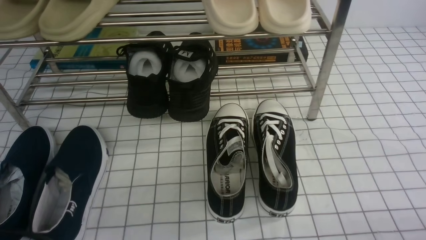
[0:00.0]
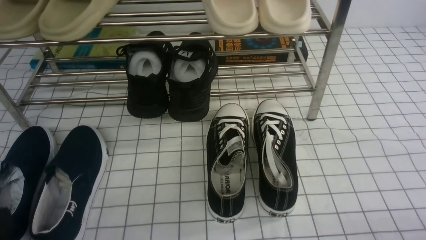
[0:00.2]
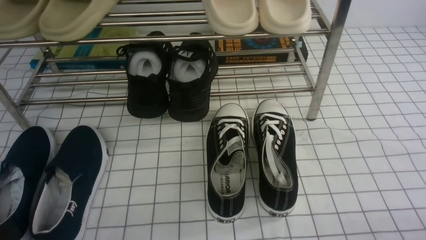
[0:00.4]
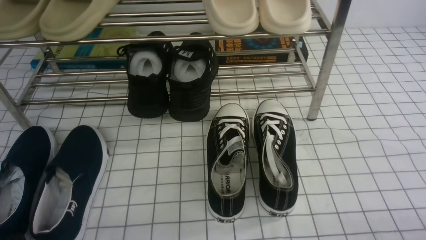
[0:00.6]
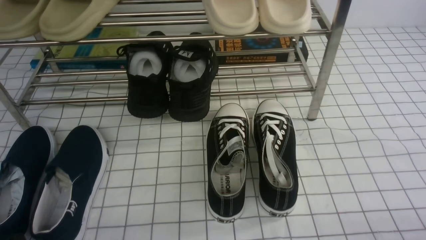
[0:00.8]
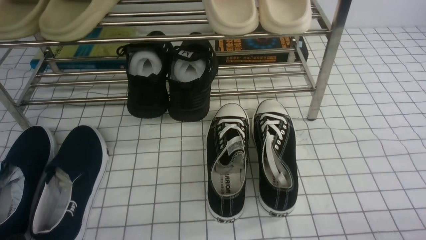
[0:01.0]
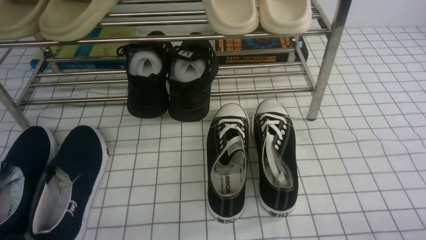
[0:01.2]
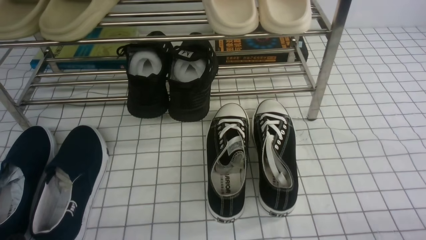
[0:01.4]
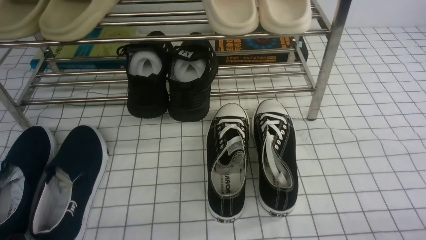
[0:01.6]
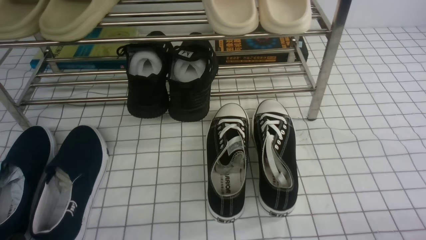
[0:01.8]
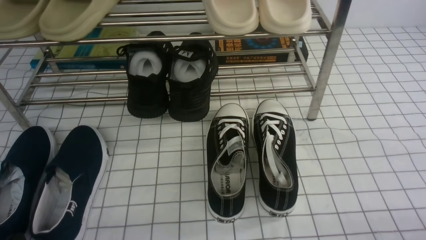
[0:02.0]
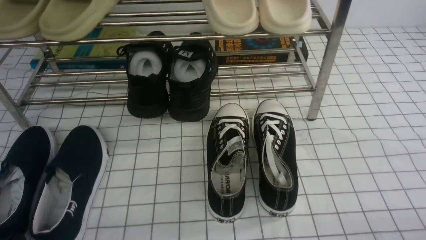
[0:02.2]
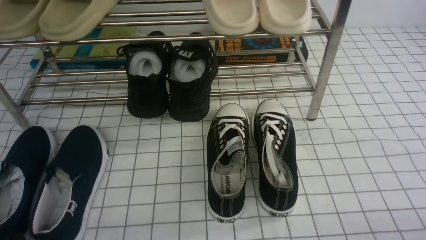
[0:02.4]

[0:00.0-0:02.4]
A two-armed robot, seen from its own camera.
0:01.2 to 0:02.4: Both grippers stay about where they are.

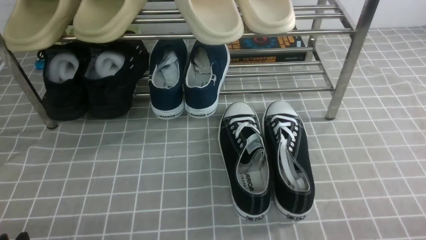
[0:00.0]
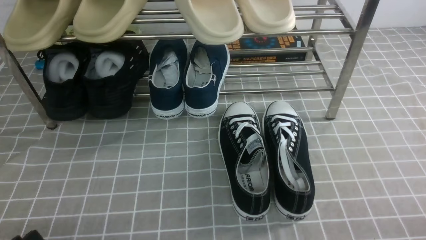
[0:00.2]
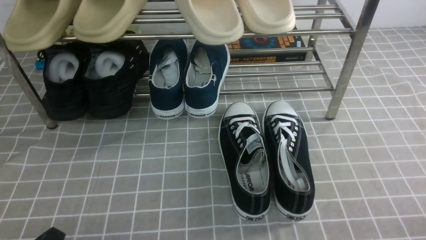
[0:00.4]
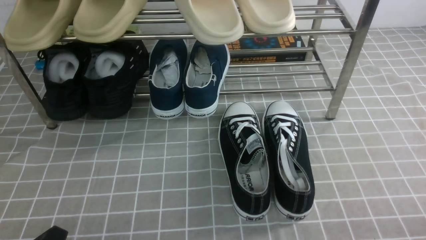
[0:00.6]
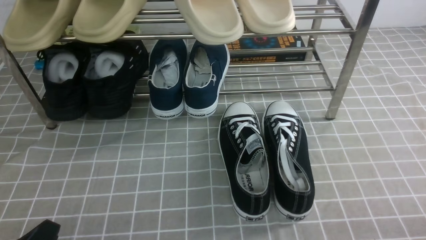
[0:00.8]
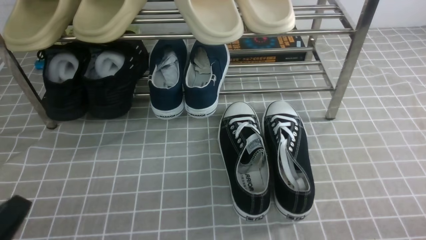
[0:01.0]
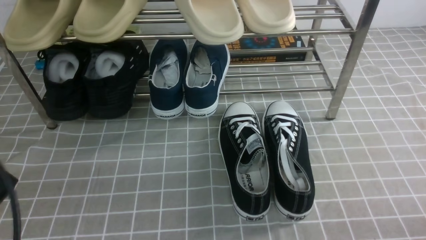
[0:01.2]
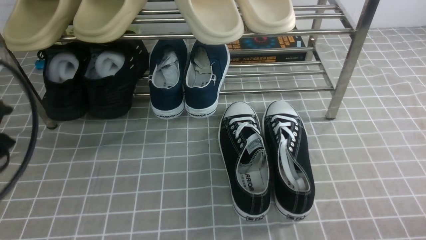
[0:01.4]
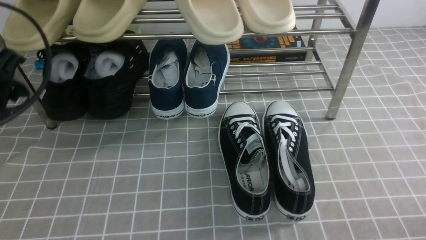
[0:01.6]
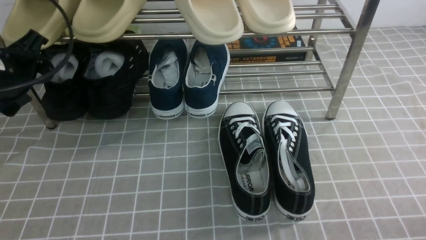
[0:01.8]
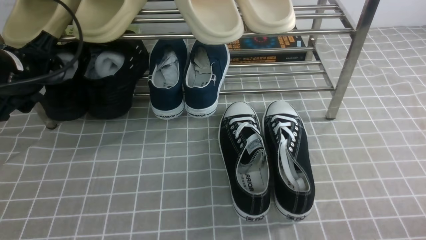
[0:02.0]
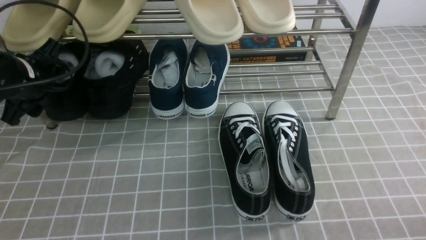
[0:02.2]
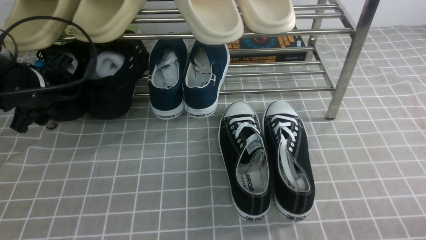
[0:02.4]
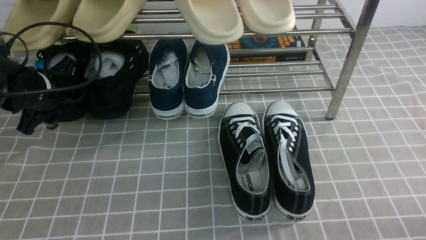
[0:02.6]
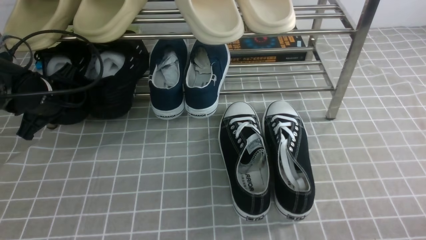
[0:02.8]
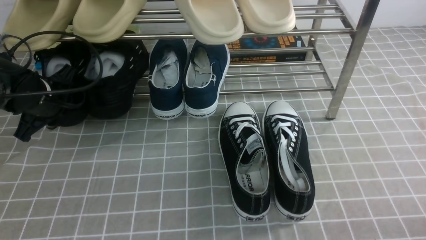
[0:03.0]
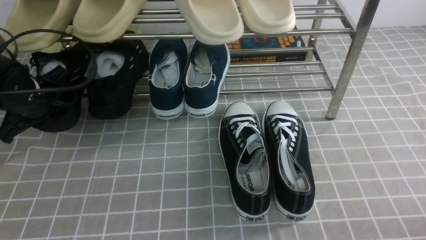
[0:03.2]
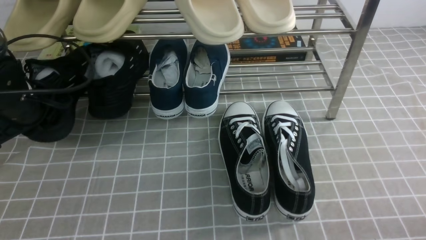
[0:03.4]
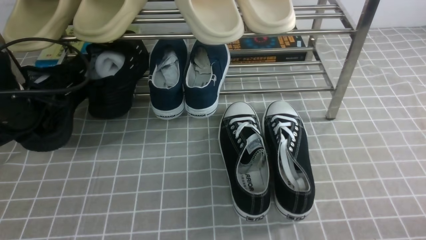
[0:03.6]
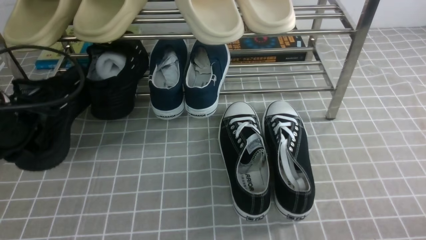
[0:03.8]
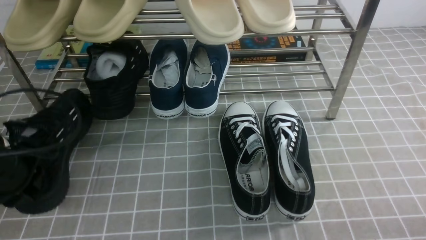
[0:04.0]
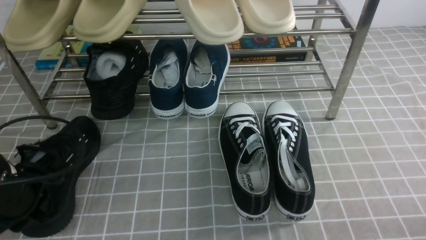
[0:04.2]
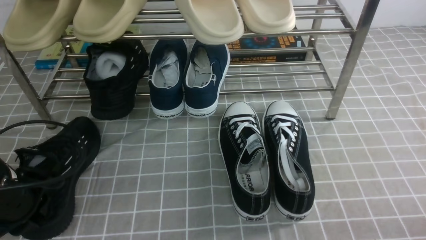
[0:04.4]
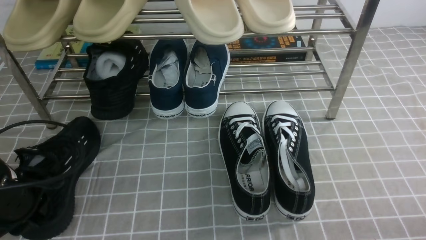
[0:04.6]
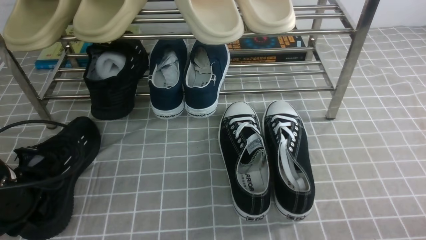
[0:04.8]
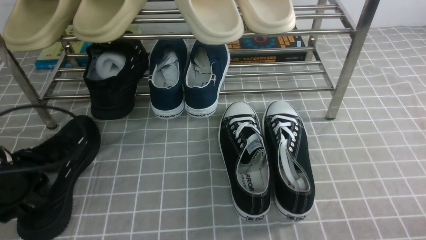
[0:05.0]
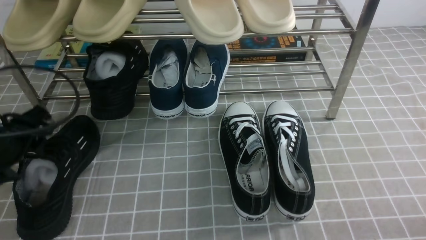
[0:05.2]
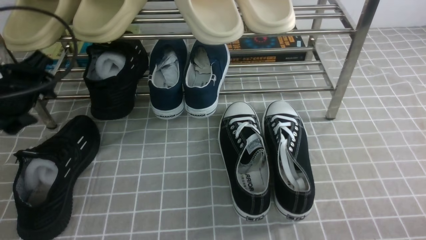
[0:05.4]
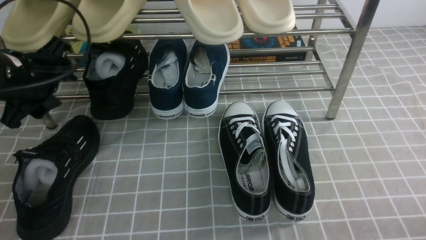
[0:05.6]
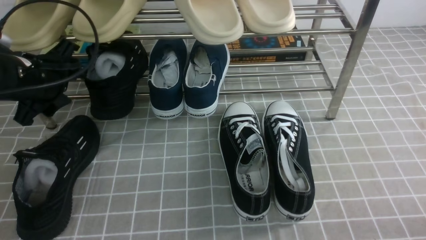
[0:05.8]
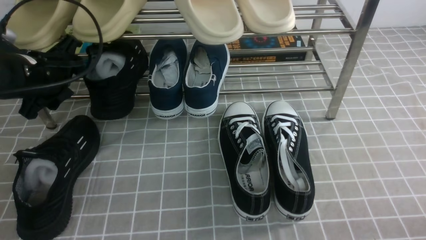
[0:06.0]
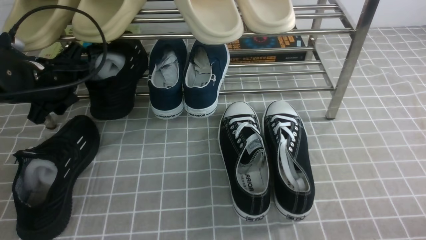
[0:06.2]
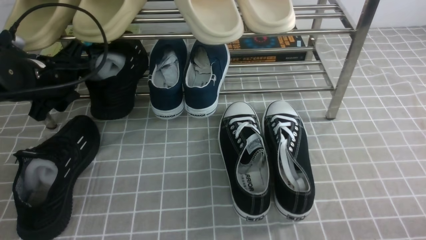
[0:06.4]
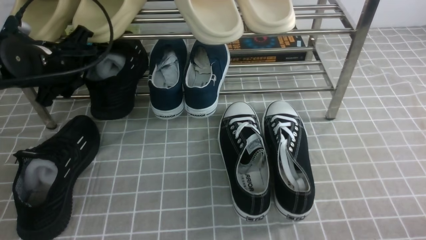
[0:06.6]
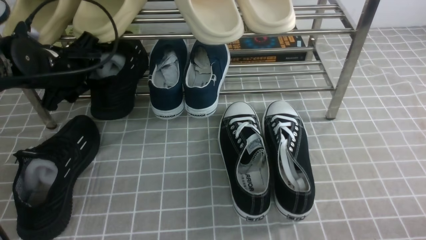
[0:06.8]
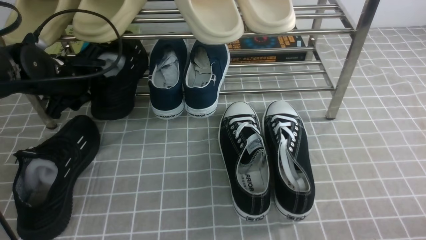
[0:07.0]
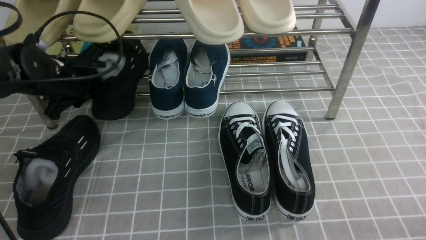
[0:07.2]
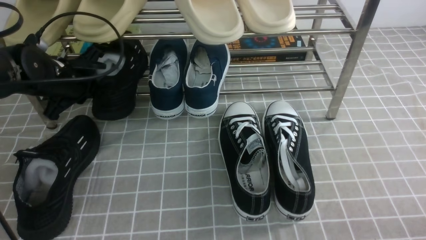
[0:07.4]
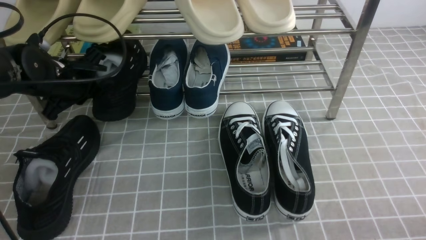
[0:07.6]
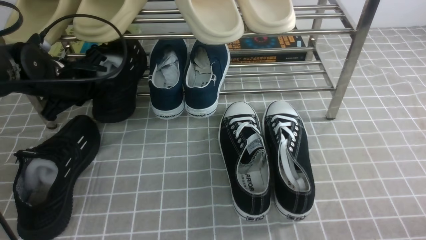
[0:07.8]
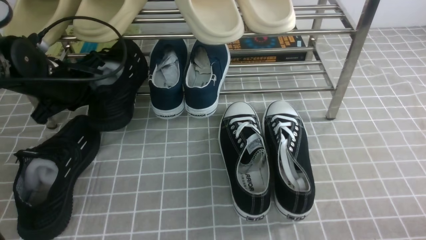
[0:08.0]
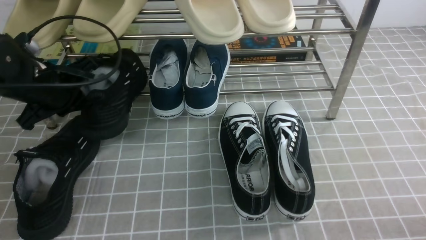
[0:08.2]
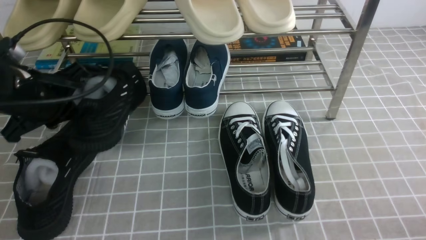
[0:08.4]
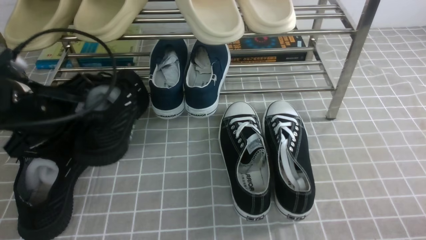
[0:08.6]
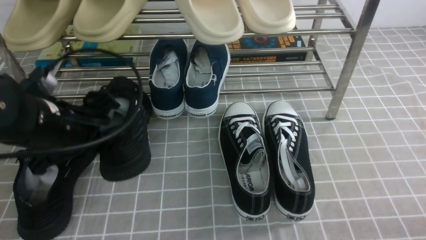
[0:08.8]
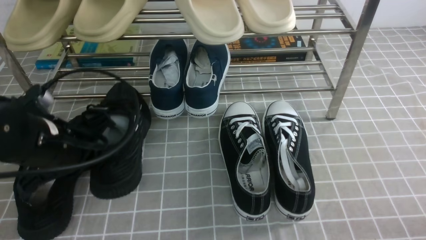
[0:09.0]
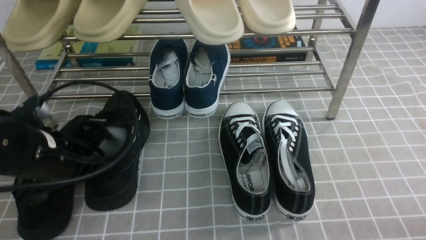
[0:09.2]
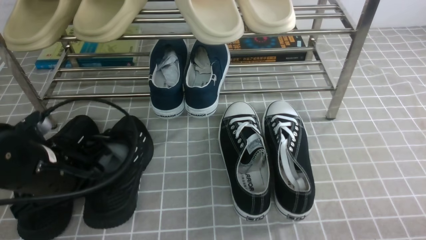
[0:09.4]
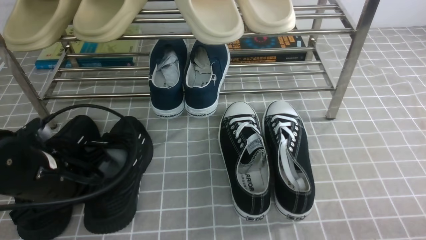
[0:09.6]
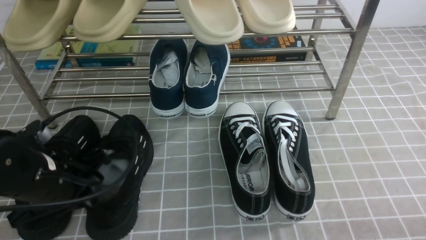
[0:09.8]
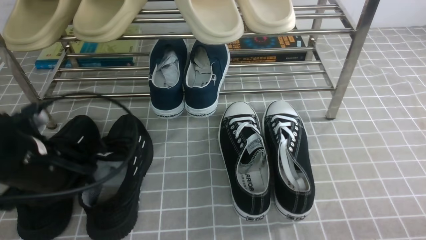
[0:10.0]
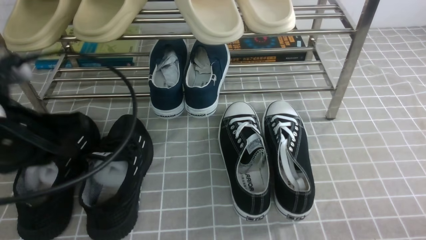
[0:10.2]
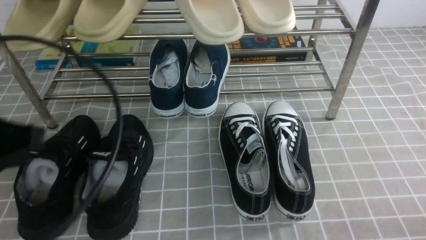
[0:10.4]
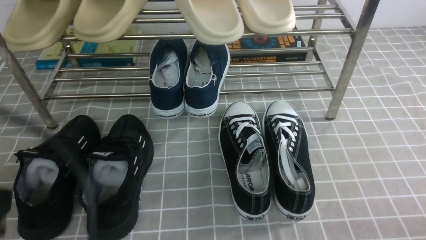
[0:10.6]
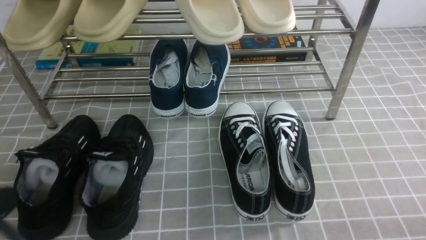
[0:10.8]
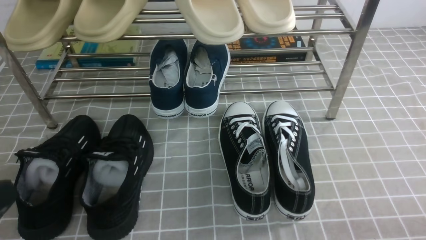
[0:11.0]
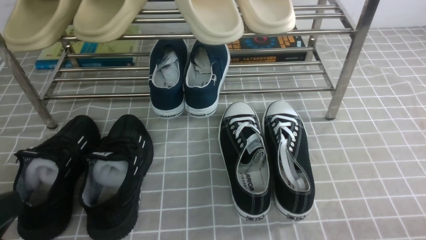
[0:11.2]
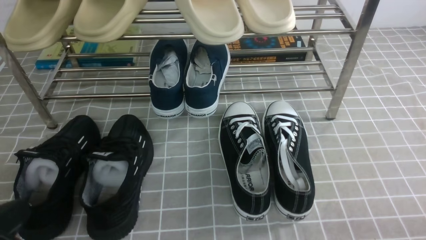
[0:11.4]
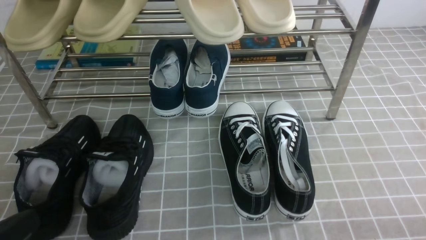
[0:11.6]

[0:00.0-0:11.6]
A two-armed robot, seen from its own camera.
Step, 0:00.0 to 0:03.0: use the left arm to clamp a shoe on the left side of the shoe rack.
Step, 0:03.2 to 0:05.2: Use your left arm to remove the clamped shoe from the shoe rack and put it down.
Step, 0:05.6 to 0:07.4: use the left arm to clamp a shoe on the left side of the shoe rack.
Step, 0:07.6 to 0:10.0: Use your left arm to remove the clamped shoe from the shoe rack and put it down.
0:00.0 to 0:01.4: The left gripper shifts some 20 cm upward and forward.
0:01.4 to 0:02.8: The left gripper shifts about 20 cm forward and downward, and opens, then closes again.
0:02.8 to 0:04.4: The left gripper travels backward by about 15 cm.
0:04.4 to 0:05.8: The left gripper is displaced forward and upward by approximately 15 cm, and opens.
0:05.8 to 0:07.2: The left gripper goes roughly 5 cm forward, and closes its fingers.
0:07.2 to 0:08.8: The left gripper travels backward by about 15 cm, and closes its fingers.
0:08.8 to 0:10.2: The left gripper travels backward and upward by some 10 cm, and opens up.
0:10.2 to 0:11.6: The left gripper moves backward and downward, approximately 15 cm, and closes its fingers.

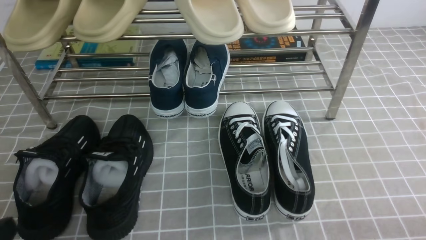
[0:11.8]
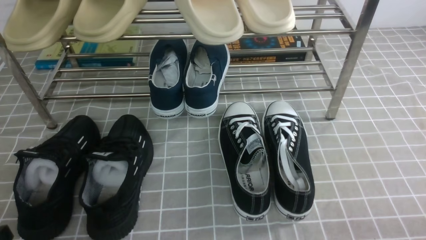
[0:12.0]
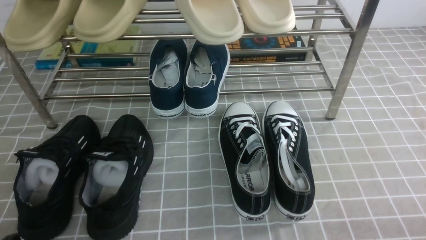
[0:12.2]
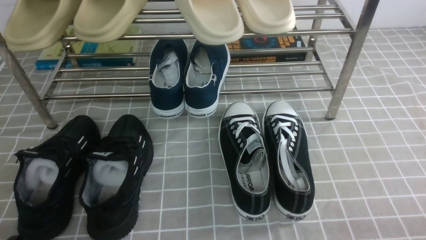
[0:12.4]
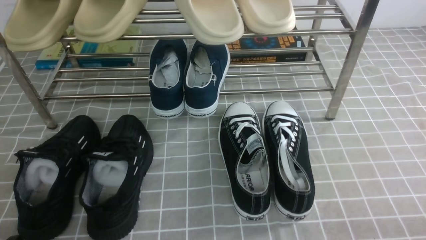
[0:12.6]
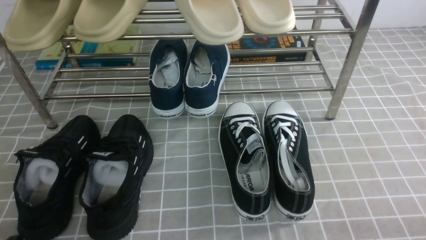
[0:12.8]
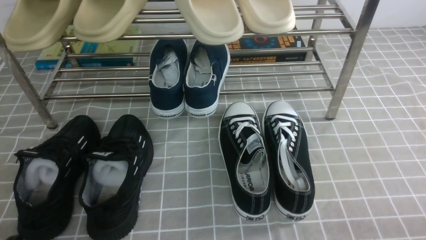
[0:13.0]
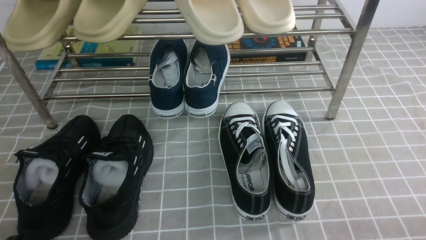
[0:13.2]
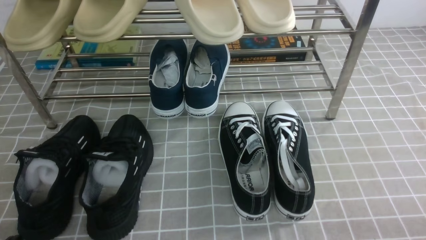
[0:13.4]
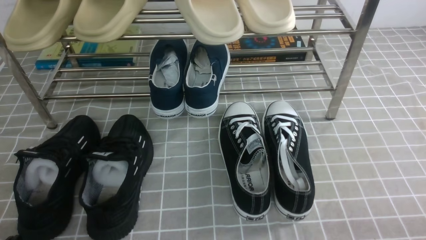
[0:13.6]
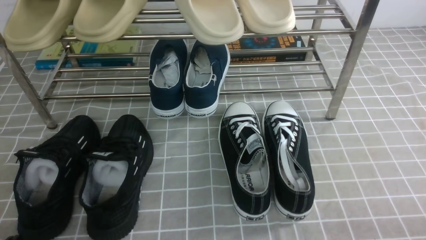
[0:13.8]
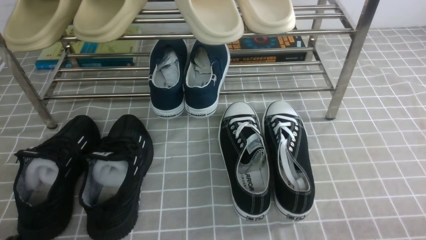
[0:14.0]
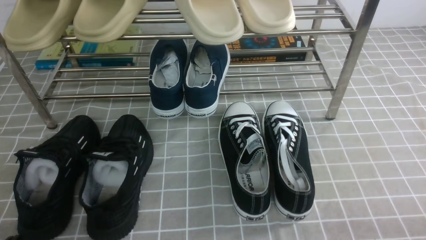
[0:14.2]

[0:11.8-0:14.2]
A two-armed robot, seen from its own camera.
0:13.0 to 0:14.2: Neither gripper changes place.
